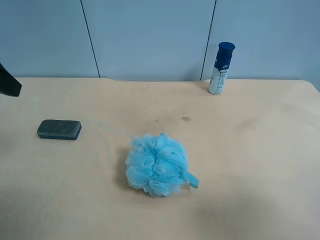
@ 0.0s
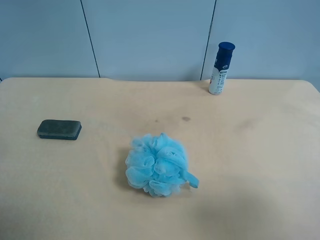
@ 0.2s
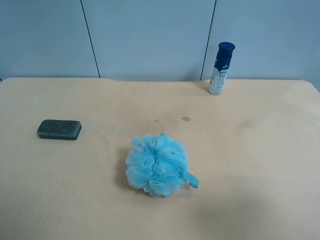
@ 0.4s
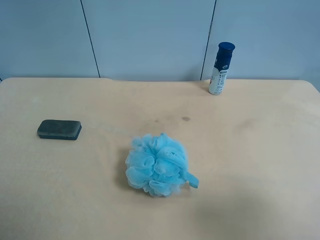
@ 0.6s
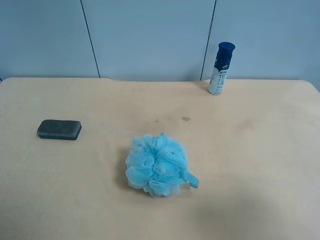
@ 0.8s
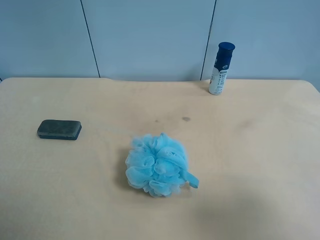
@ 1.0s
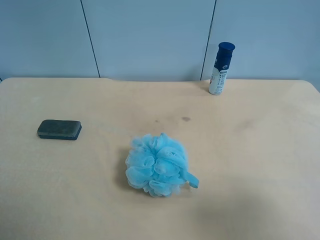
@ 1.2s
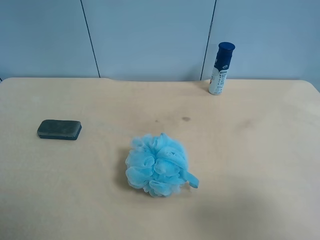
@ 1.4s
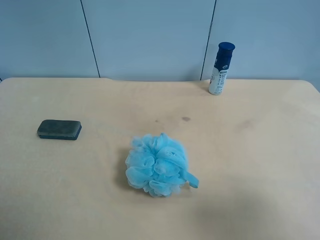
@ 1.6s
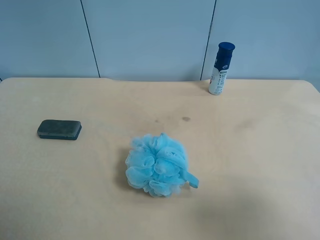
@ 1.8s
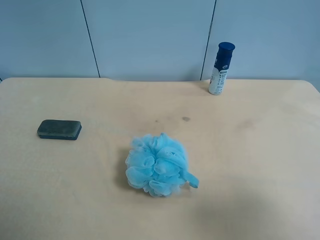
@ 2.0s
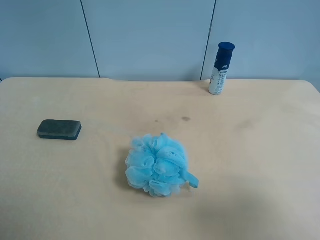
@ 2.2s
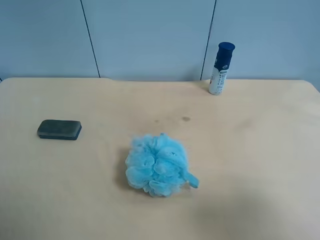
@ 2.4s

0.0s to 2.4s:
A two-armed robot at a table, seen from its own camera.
Task of the whole recording: use the right gripper to pick up the item and transfer it from the right gripper to the left gripper.
1.2s to 2.4s: Neither gripper changes place.
